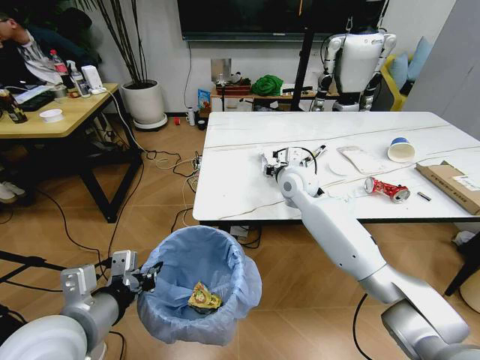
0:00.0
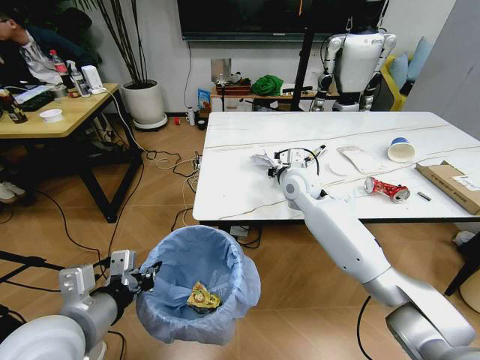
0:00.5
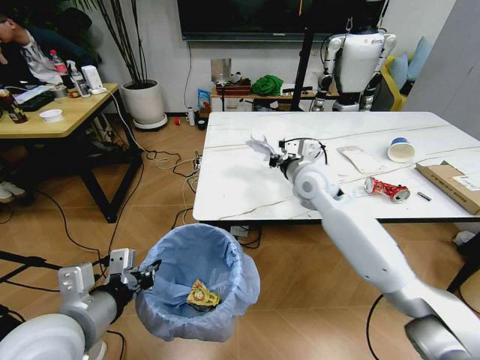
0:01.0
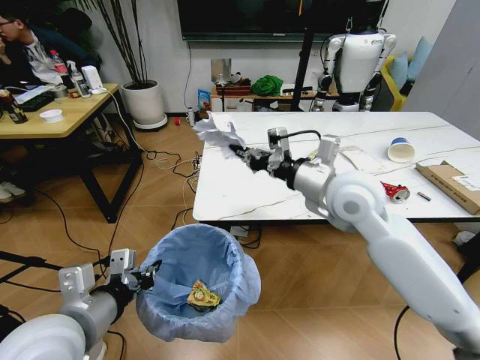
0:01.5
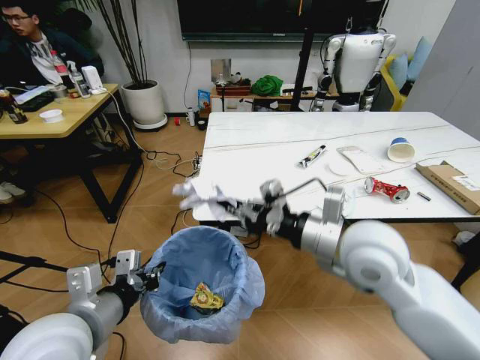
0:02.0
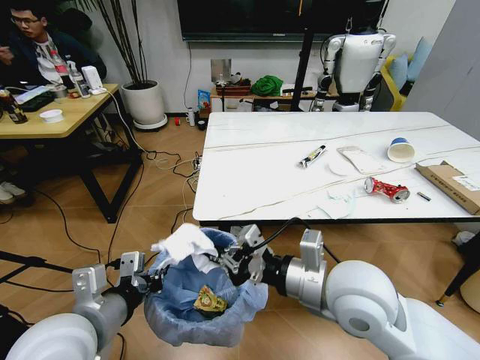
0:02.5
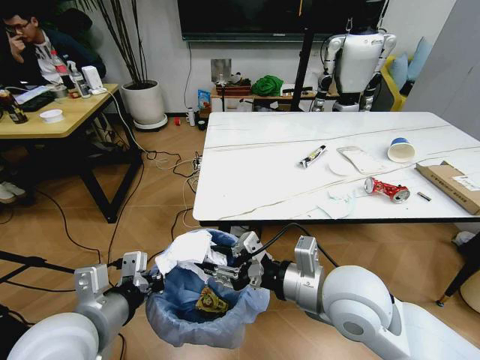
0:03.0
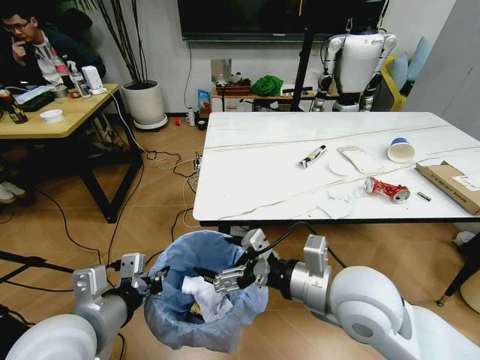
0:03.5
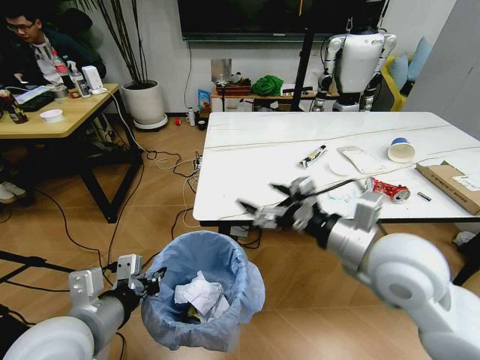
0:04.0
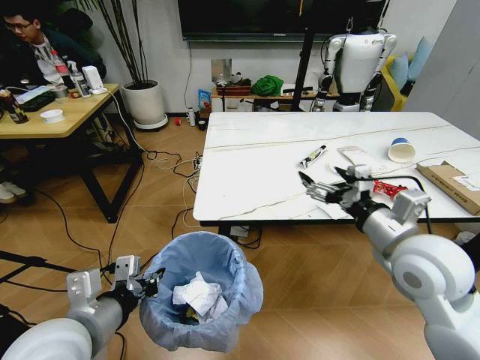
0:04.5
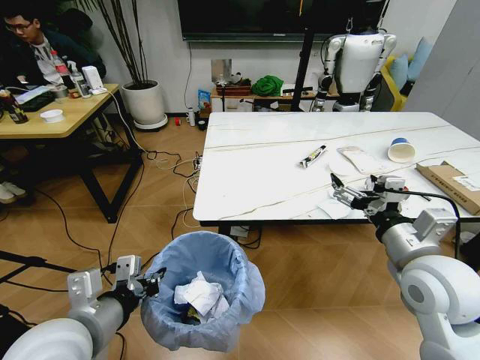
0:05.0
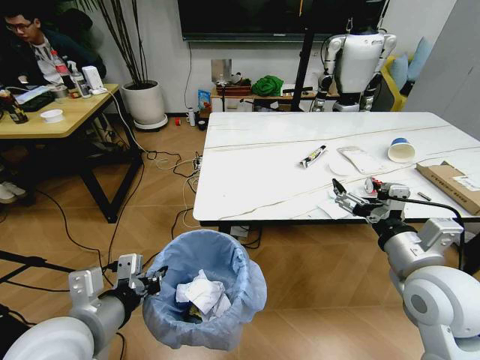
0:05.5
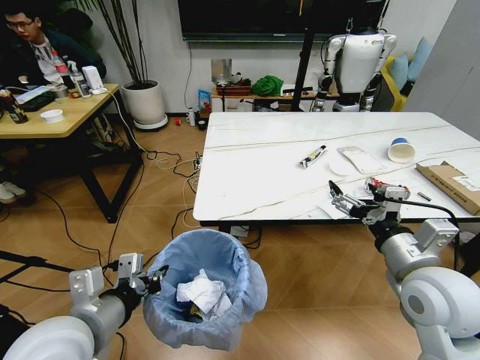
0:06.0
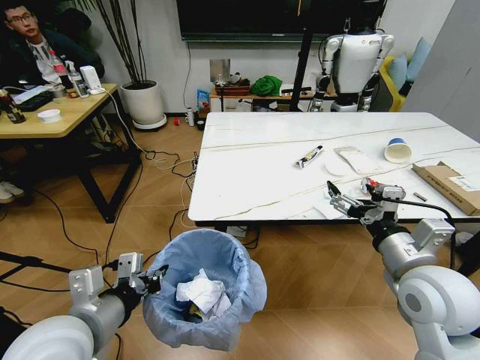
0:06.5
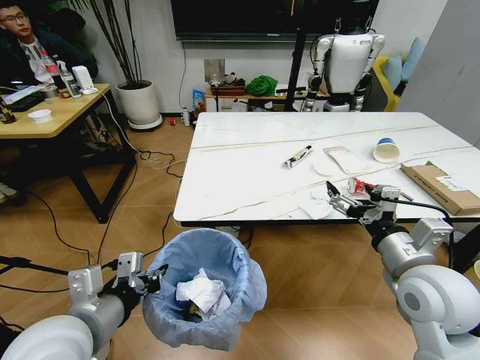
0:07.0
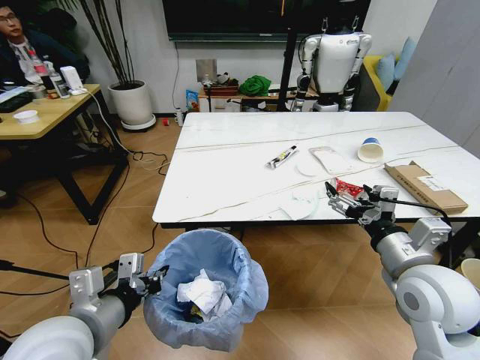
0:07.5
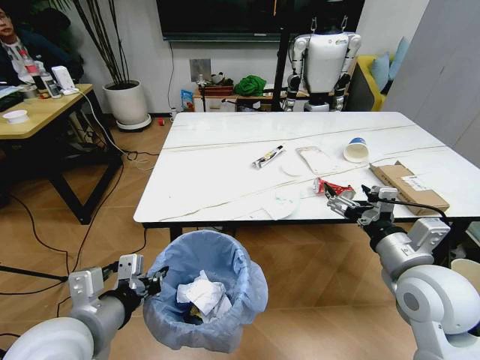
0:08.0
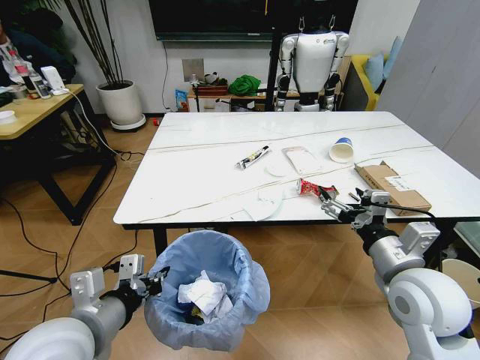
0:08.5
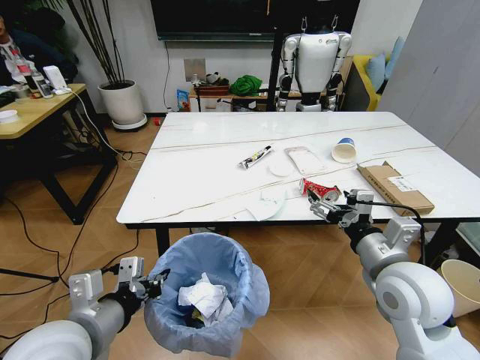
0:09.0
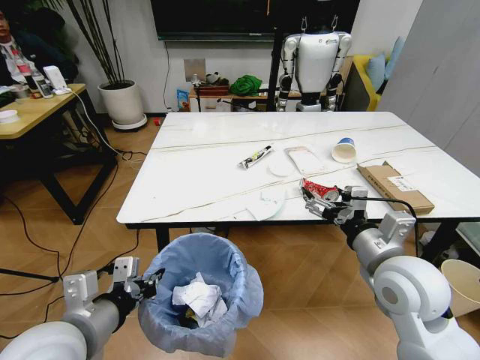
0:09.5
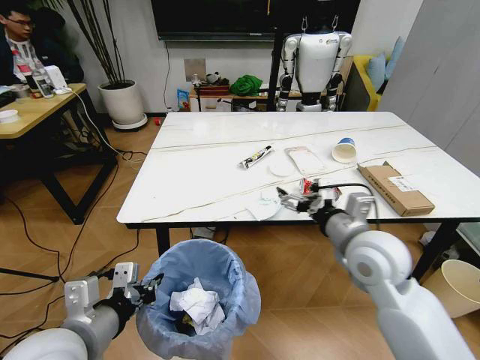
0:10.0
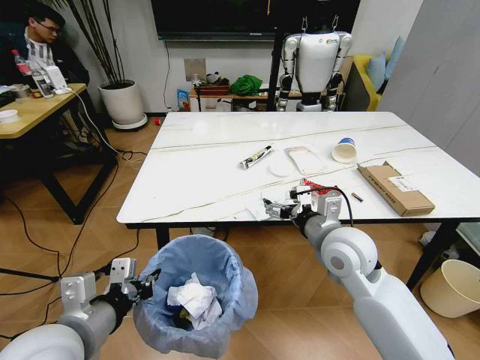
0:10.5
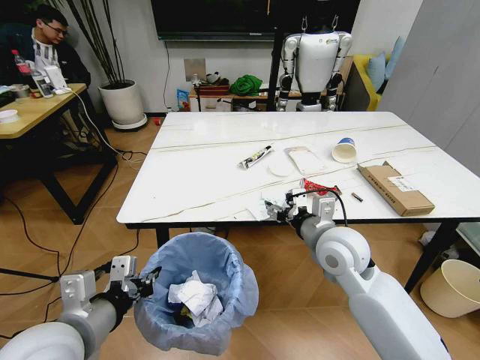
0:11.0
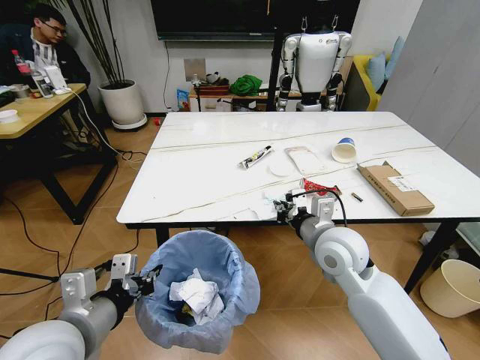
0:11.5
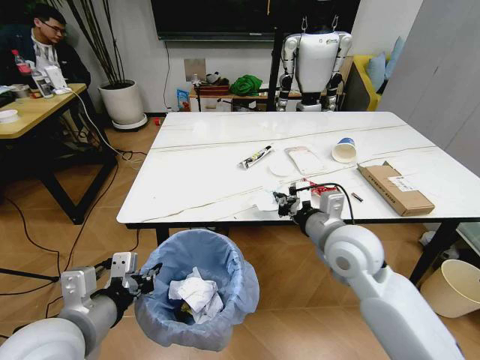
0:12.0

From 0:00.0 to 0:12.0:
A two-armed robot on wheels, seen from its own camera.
Task of the whole recording: Pick up the trash bin and place the trash from the table into it.
From 0:00.0 to 0:02.0: The right gripper goes approximately 25 cm backward, and closes.
From 0:02.0 to 0:04.0: The right gripper opens.
From 0:04.0 to 0:06.0: The right gripper goes approximately 5 cm to the right.
From 0:08.0 to 0:10.0: The right gripper travels forward and to the left by about 10 cm.
From 0:10.0 to 0:12.0: The right gripper closes up.

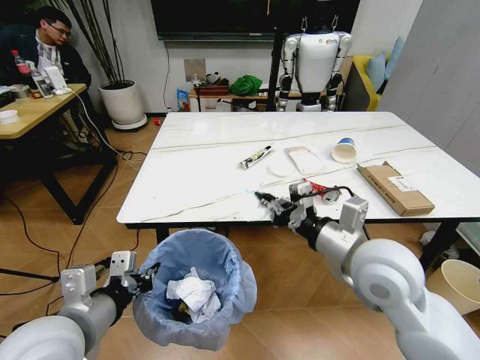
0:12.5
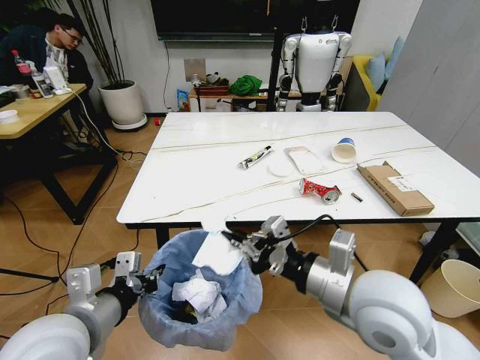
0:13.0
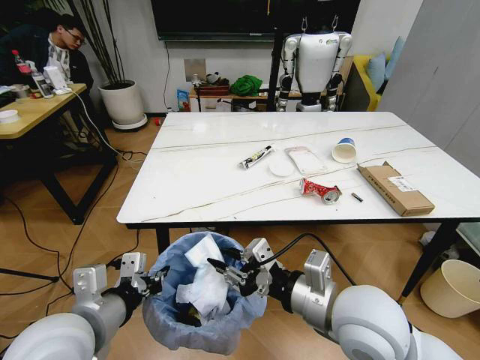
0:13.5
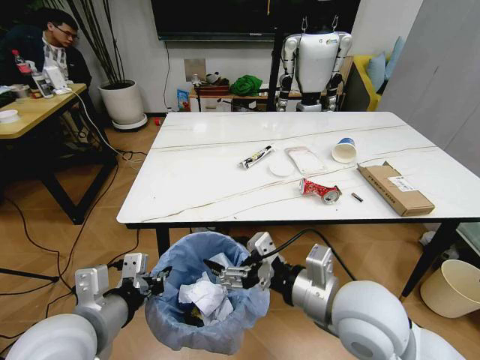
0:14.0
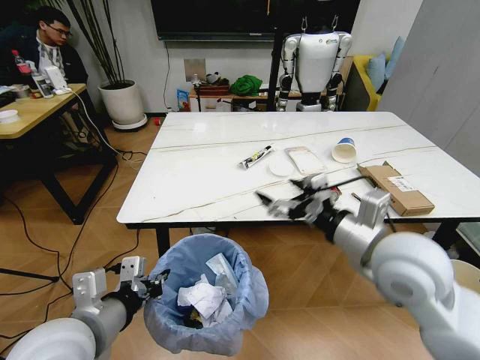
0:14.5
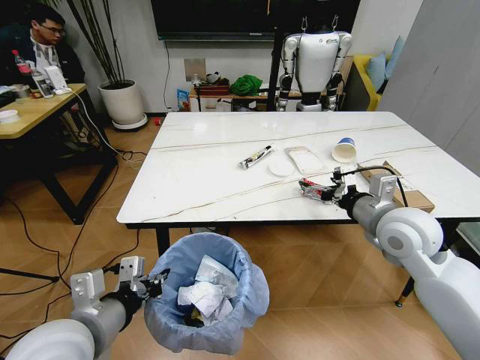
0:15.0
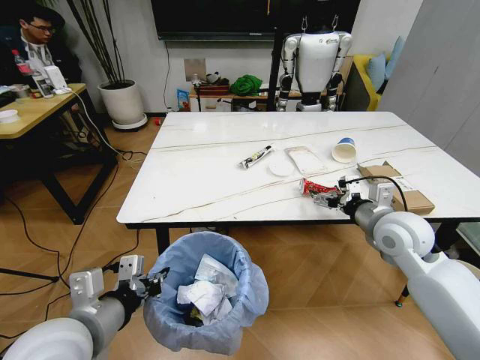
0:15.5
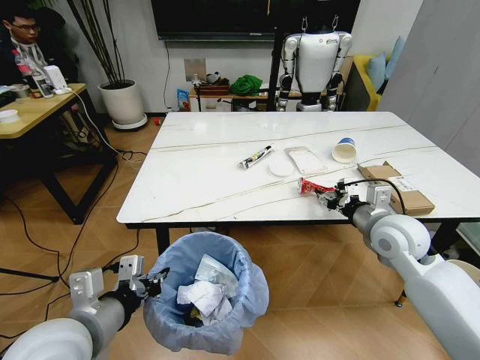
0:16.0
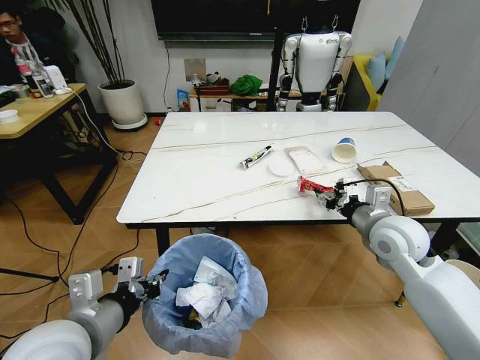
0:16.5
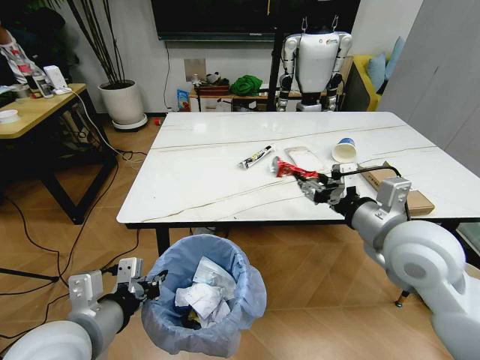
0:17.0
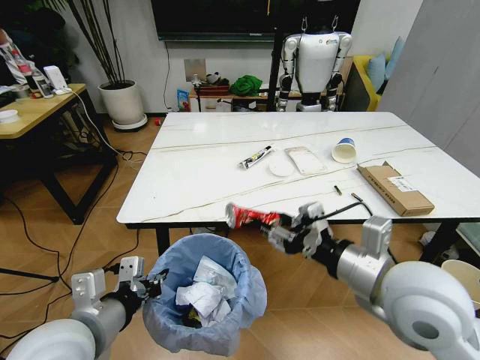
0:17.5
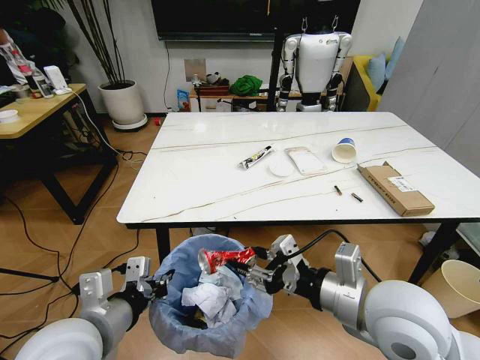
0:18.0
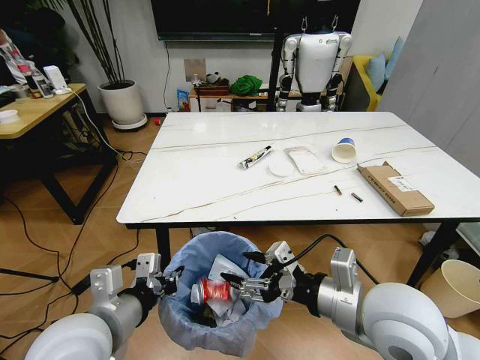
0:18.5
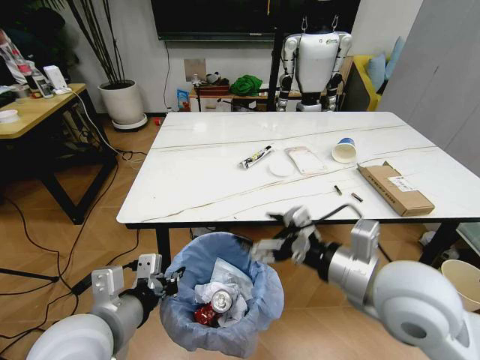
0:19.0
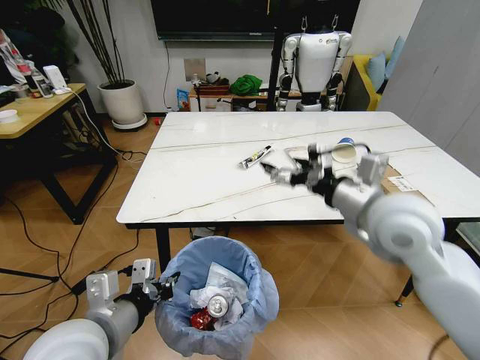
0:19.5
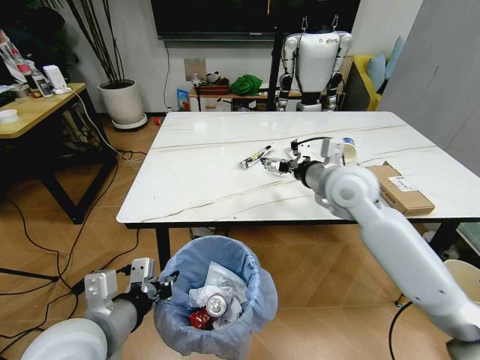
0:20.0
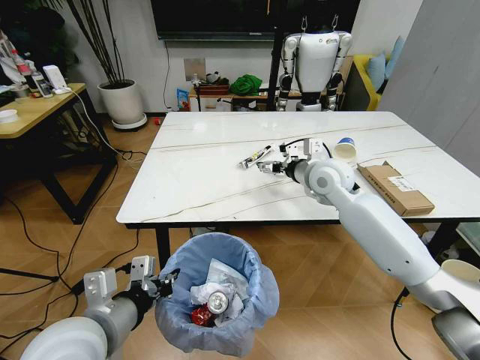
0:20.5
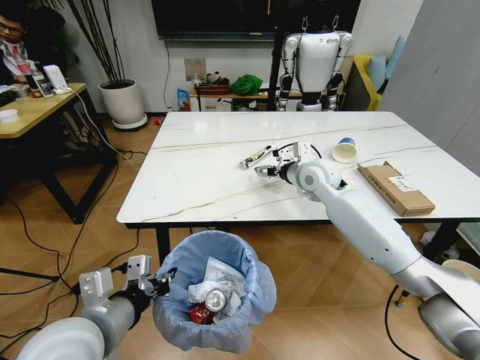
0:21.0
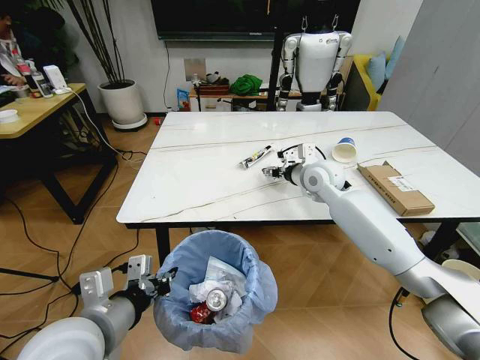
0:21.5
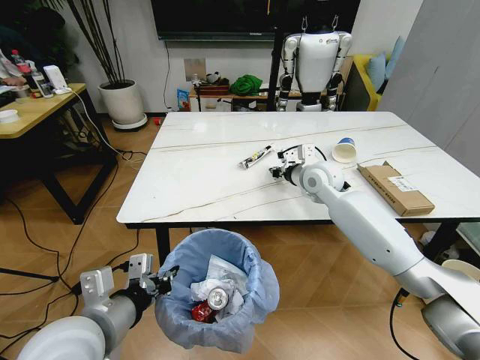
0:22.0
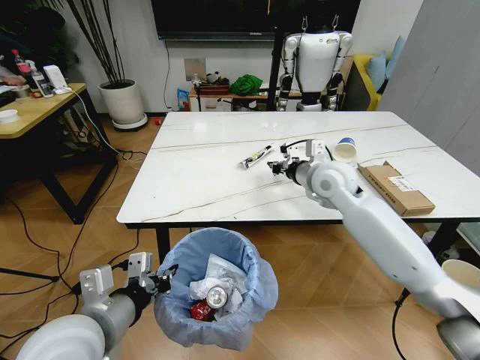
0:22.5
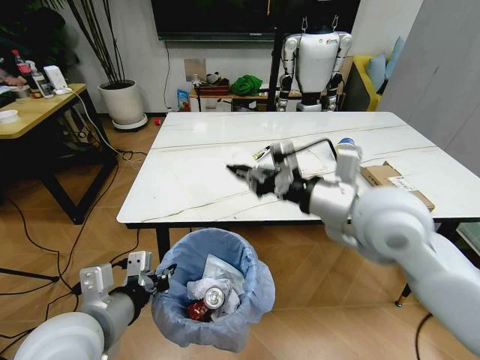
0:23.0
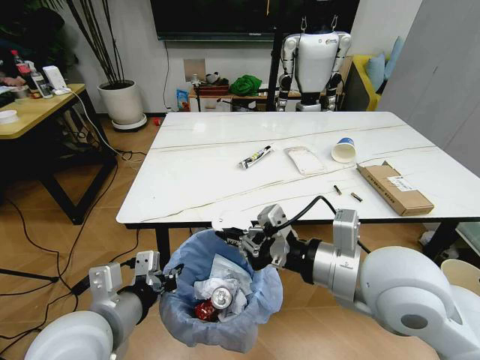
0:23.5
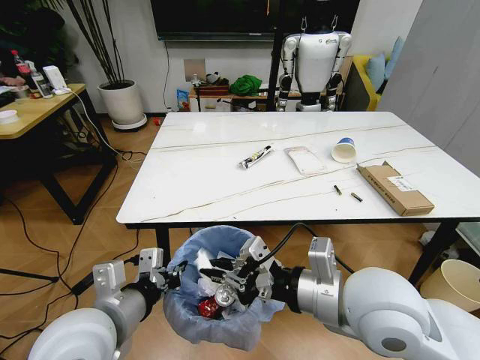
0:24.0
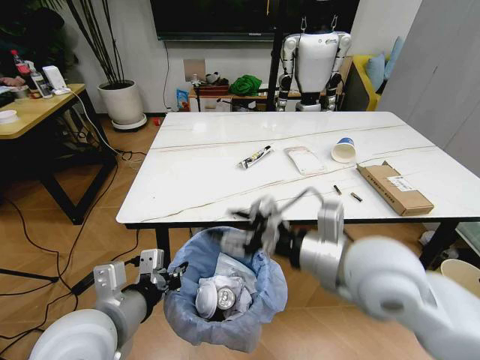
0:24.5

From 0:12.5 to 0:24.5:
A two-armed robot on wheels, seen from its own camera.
Task of the whole recording: Pick up the trash bin and place the trash from the table into it.
From 0:12.5 to 0:14.5: The right gripper opens up.
From 0:14.5 to 0:16.5: The right gripper is displaced forward, downward and to the right by roughly 15 cm, and closes its fingers.
From 0:16.5 to 0:18.5: The right gripper moves backward and to the left, approximately 20 cm.
From 0:18.5 to 0:20.5: The right gripper shifts about 30 cm forward, and opens.
From 0:20.5 to 0:22.5: The right gripper closes its fingers.
From 0:22.5 to 0:24.5: The right gripper travels backward by some 20 cm, and opens.

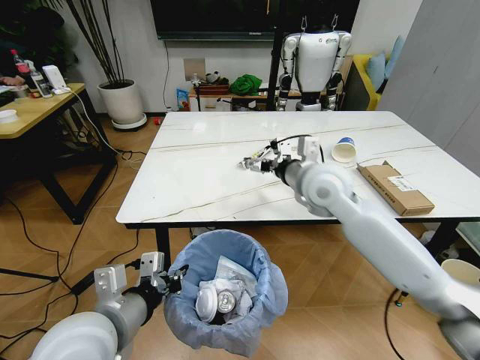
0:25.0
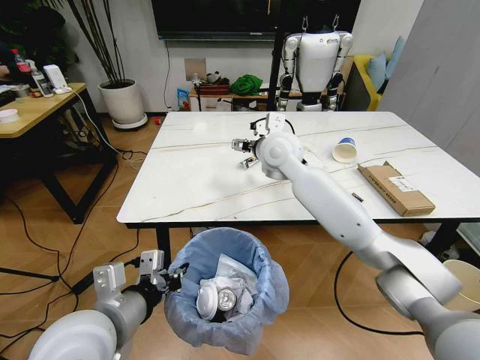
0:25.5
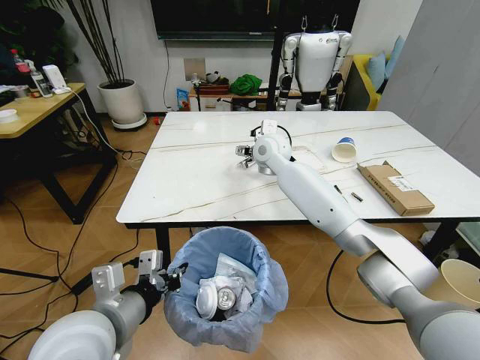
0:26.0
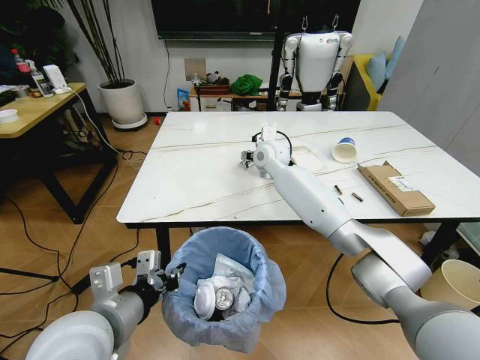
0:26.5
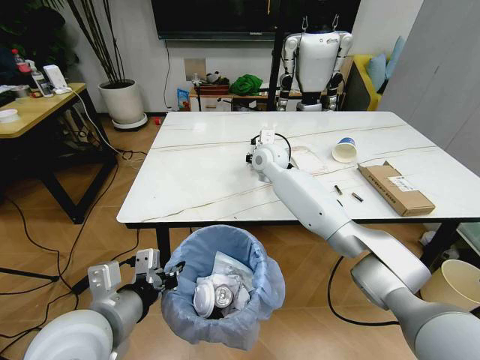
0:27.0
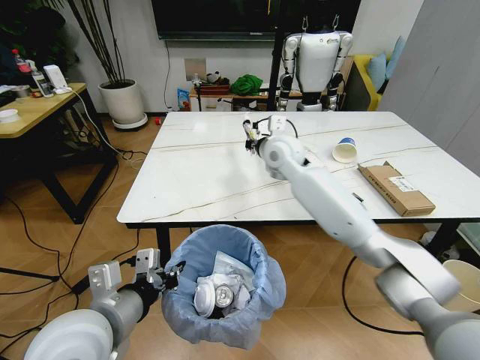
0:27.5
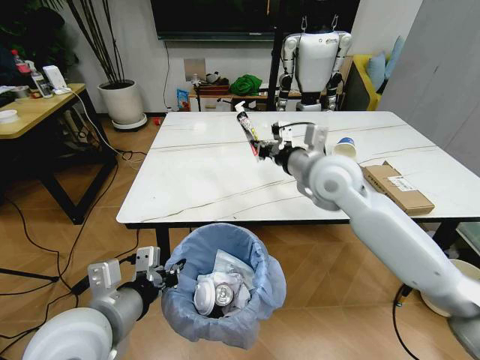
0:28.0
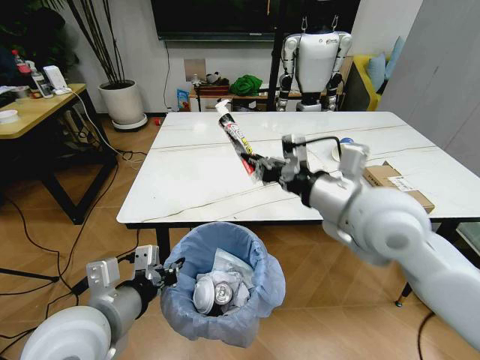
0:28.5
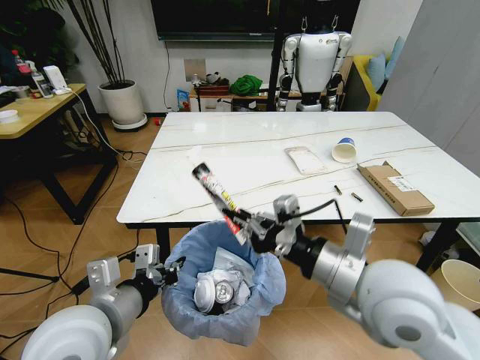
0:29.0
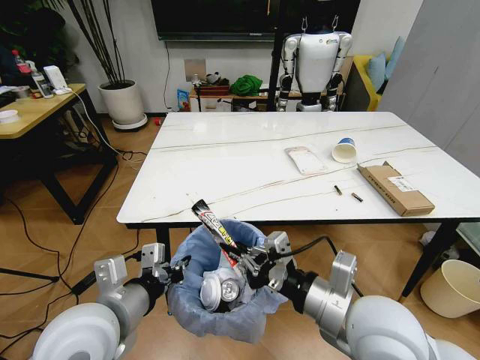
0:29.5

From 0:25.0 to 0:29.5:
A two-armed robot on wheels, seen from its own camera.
Task of the whole recording: Pick up the trash bin and place the trash from the table into it.
From 0:25.0 to 0:27.0: The right gripper moves forward and to the left, roughly 20 cm, and closes its fingers.
From 0:27.0 to 0:29.5: The right gripper travels backward by some 40 cm.
